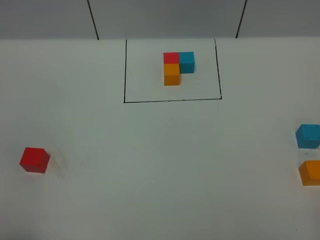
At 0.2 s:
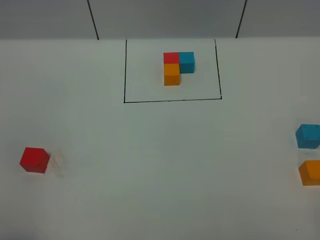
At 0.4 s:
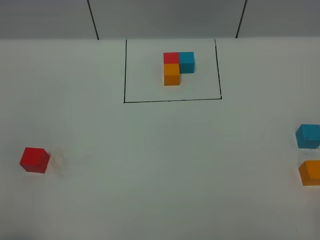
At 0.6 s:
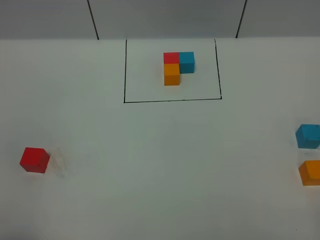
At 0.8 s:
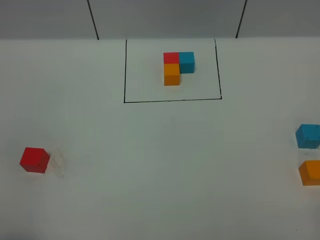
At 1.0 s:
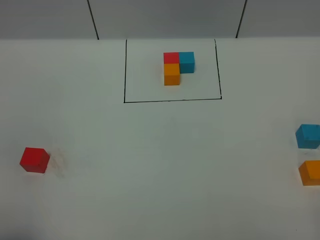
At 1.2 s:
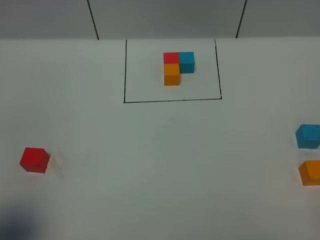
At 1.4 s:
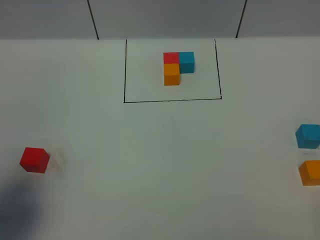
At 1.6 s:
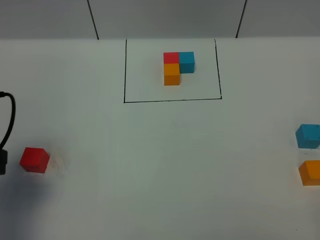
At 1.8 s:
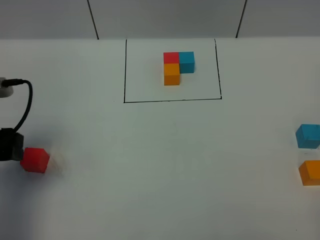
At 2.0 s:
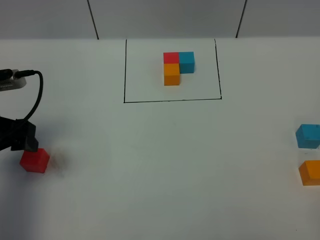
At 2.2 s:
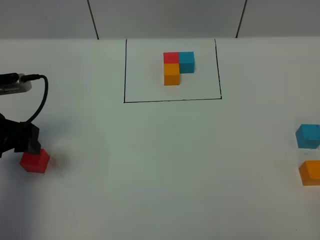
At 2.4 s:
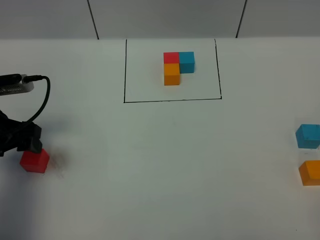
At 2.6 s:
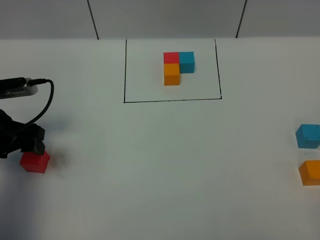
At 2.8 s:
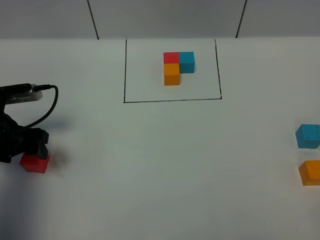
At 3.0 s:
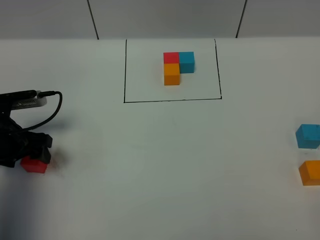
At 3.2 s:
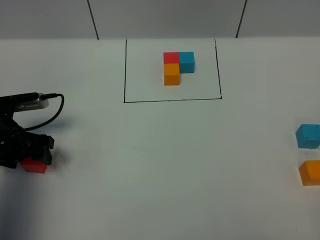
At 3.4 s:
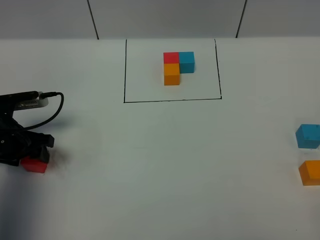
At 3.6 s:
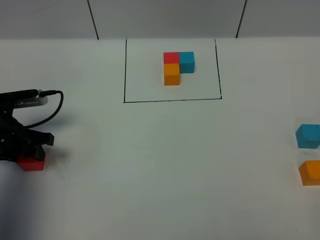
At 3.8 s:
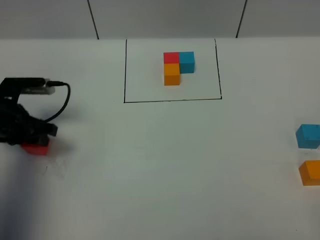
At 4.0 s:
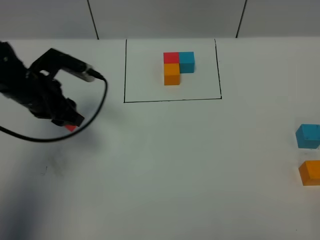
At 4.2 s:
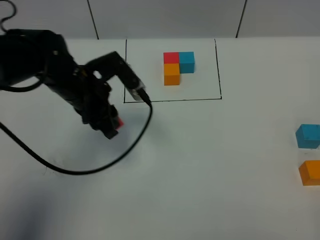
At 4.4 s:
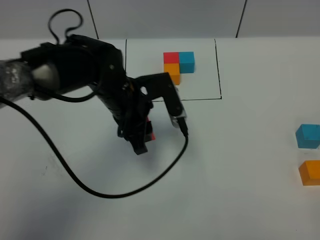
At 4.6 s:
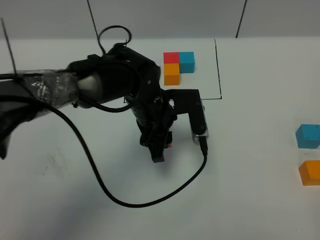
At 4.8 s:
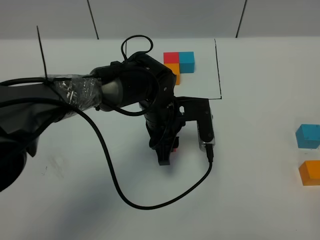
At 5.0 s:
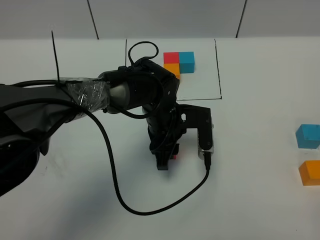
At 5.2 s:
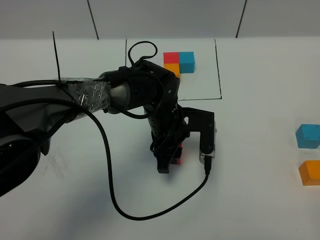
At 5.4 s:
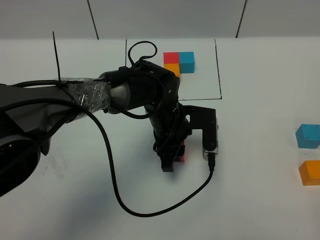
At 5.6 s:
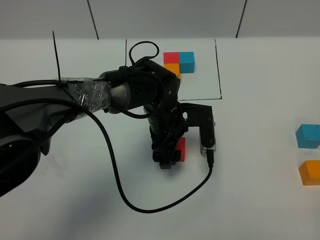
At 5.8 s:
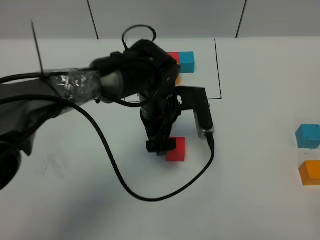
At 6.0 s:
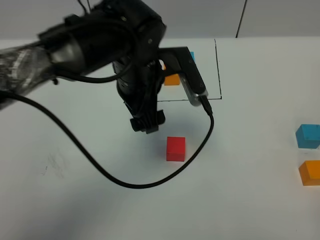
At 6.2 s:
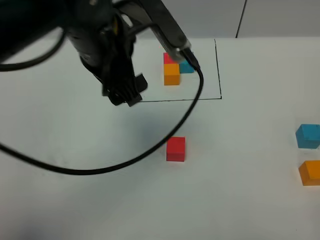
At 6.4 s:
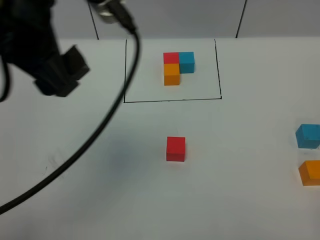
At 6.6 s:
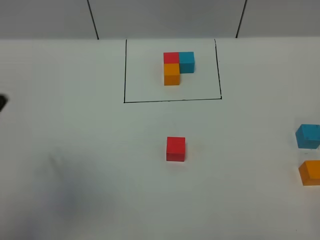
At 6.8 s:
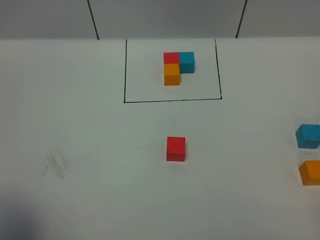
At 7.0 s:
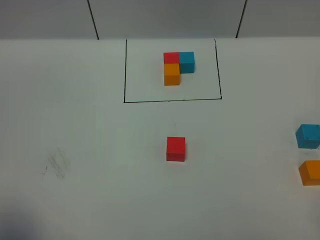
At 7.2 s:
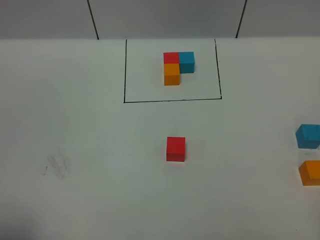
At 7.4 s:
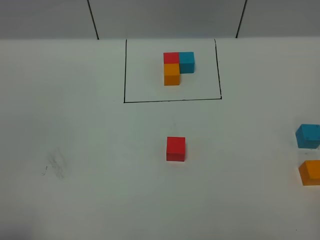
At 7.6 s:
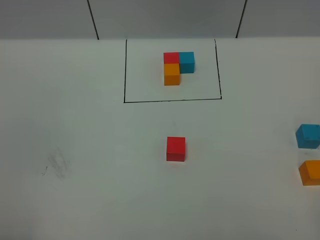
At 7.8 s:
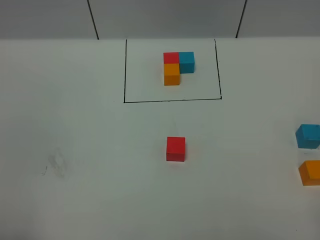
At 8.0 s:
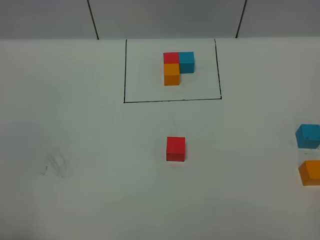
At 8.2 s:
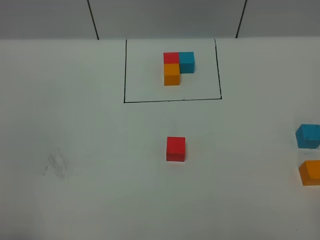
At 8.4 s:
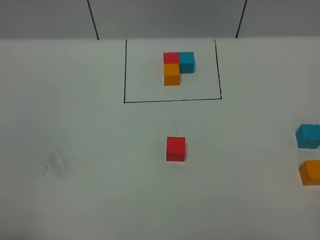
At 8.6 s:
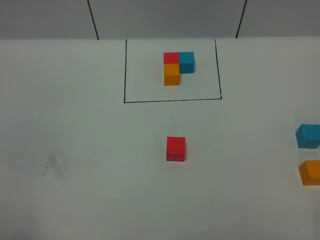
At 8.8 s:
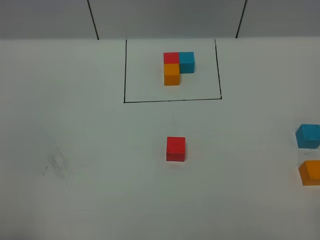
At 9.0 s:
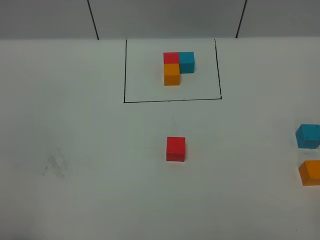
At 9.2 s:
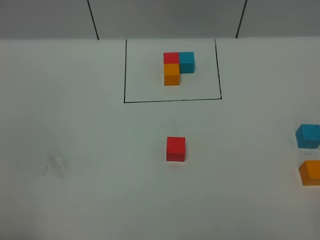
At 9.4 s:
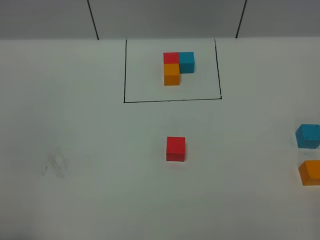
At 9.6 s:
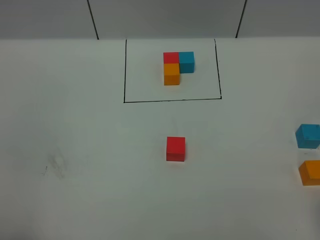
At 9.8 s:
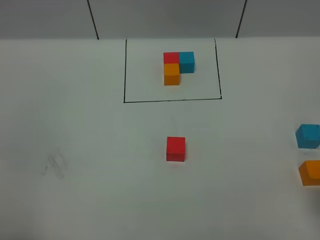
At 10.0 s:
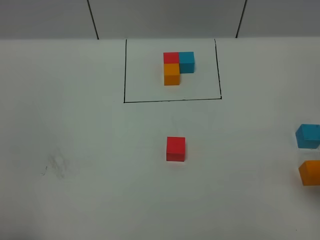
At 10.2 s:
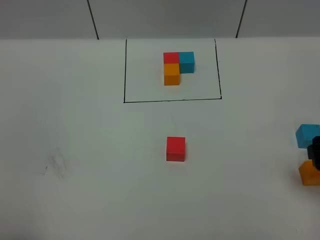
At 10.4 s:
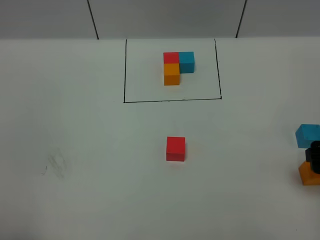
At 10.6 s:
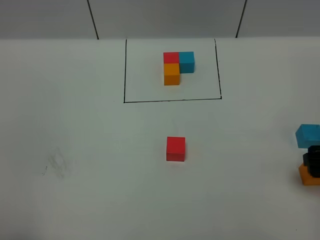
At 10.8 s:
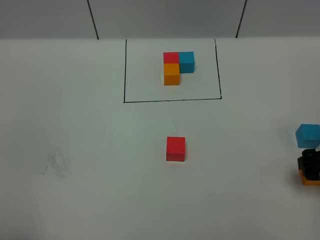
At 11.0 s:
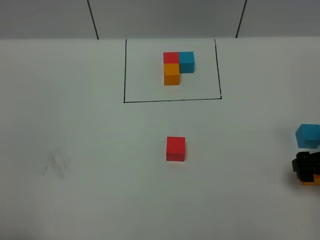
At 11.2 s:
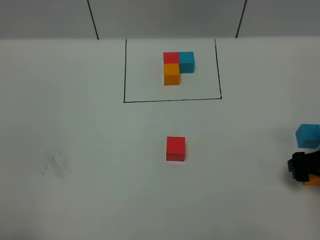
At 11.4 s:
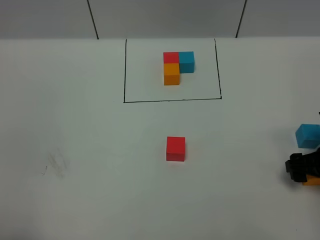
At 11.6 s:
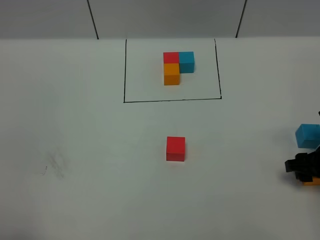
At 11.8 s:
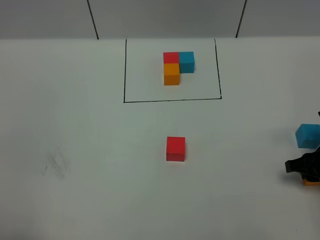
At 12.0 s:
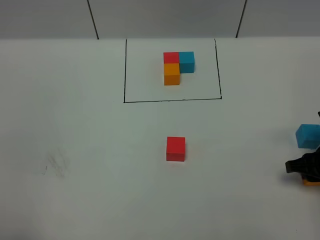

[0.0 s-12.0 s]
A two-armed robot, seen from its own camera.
Task of the whole recording: According to the building block template in front, assemble the scattered blocks together.
Step, 1.4 to 5.4 s: Put the red cube in the center of the table.
0.0 to 1.6 s: The left gripper moves forward, about 20 cm.
1.6 to 3.0 s: The left gripper heads downward and forward, covering roughly 15 cm.
3.0 to 4.4 s: The left gripper heads to the right, covering roughly 25 cm, and closes.
4.4 to 6.0 s: The left gripper heads upward, covering about 10 cm, and opens up.
6.0 to 7.6 s: The left gripper shifts some 40 cm backward and to the left, and closes up.
9.0 to 10.4 s: The right gripper moves forward, roughly 20 cm.
10.4 to 12.0 s: The right gripper is displaced downward by about 10 cm, and closes its fingers.

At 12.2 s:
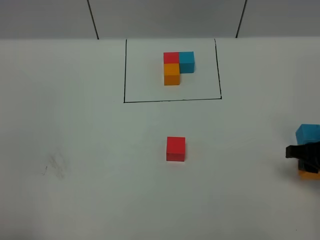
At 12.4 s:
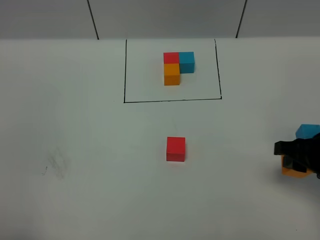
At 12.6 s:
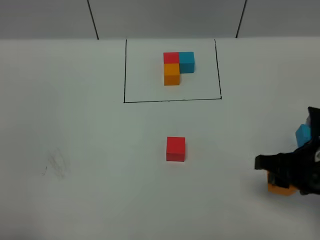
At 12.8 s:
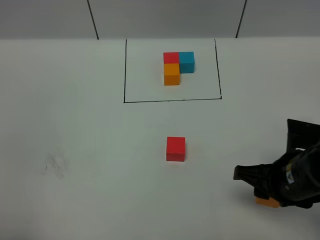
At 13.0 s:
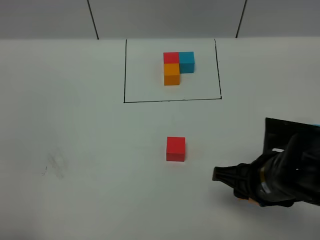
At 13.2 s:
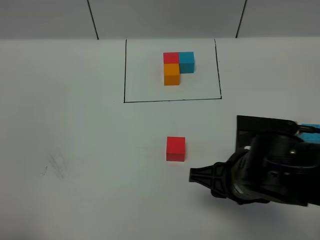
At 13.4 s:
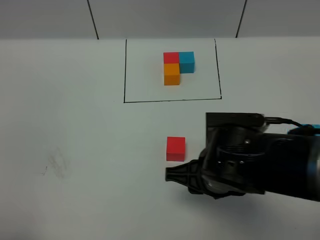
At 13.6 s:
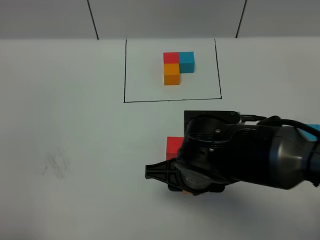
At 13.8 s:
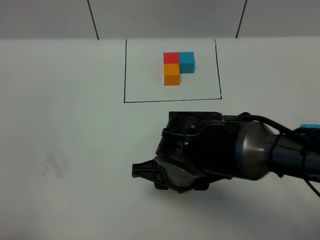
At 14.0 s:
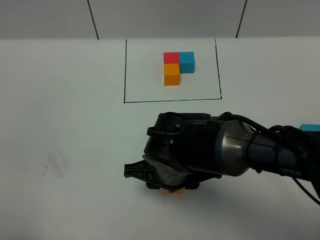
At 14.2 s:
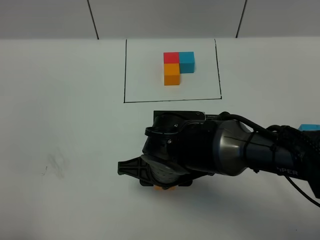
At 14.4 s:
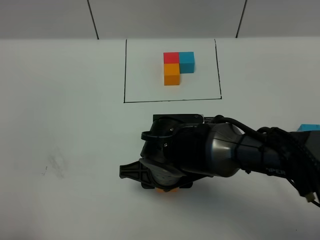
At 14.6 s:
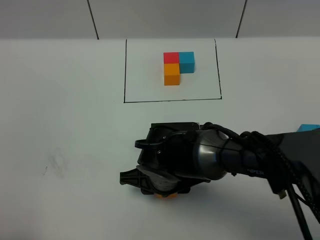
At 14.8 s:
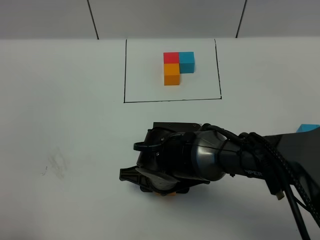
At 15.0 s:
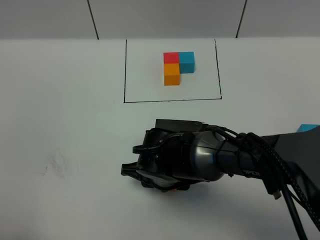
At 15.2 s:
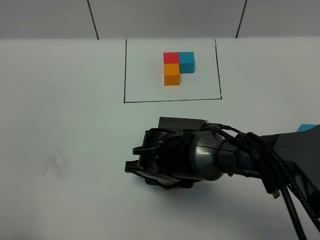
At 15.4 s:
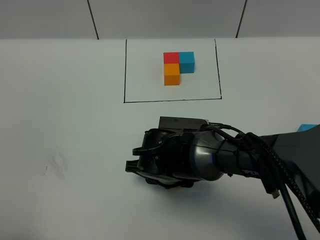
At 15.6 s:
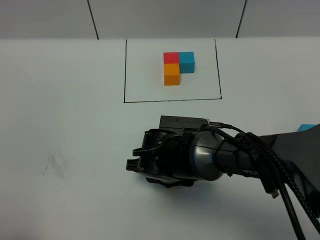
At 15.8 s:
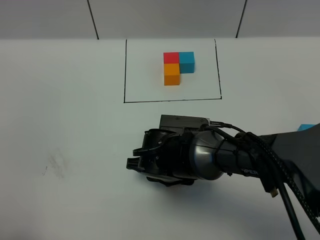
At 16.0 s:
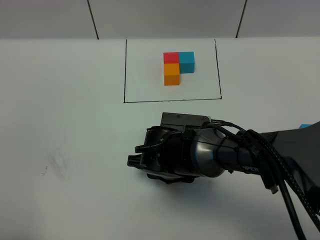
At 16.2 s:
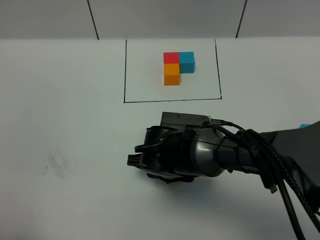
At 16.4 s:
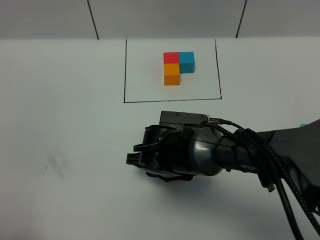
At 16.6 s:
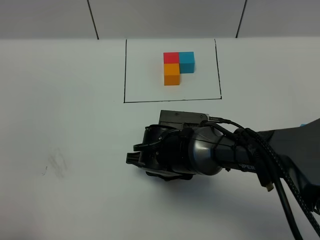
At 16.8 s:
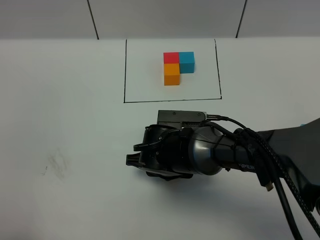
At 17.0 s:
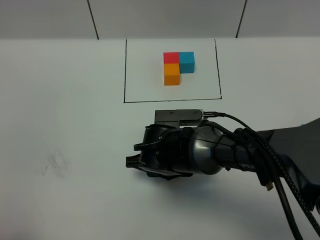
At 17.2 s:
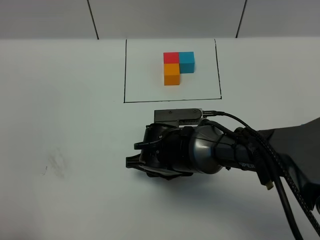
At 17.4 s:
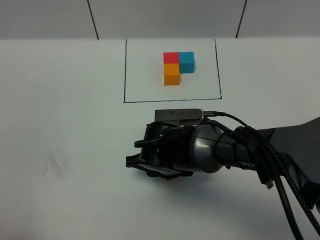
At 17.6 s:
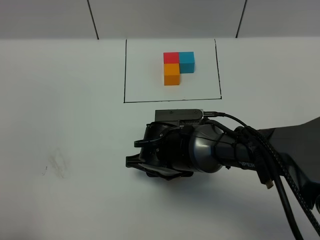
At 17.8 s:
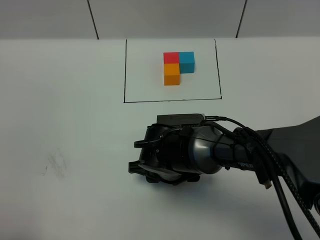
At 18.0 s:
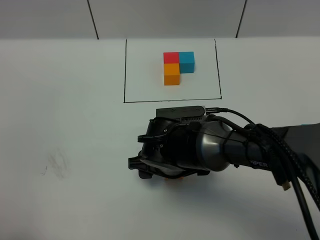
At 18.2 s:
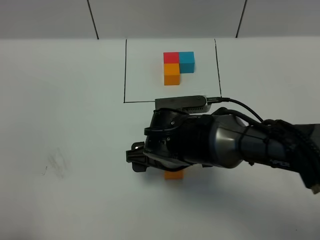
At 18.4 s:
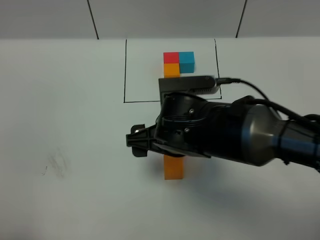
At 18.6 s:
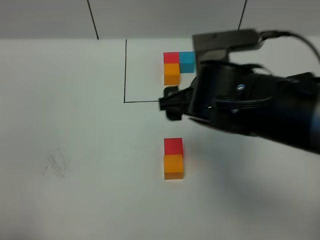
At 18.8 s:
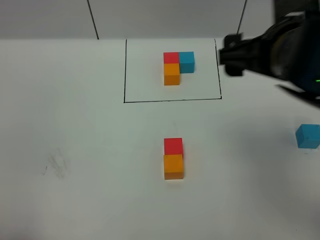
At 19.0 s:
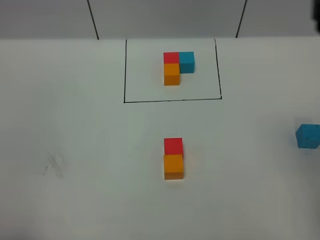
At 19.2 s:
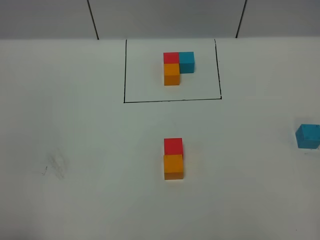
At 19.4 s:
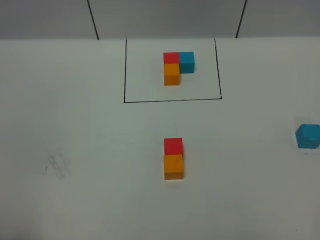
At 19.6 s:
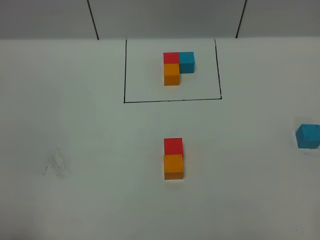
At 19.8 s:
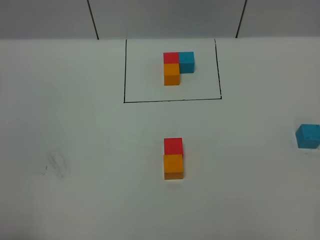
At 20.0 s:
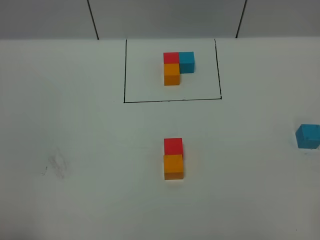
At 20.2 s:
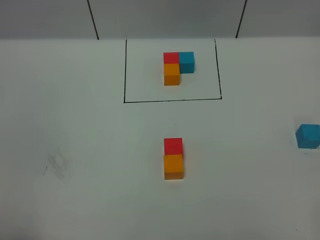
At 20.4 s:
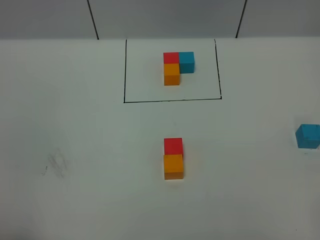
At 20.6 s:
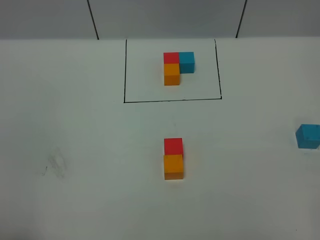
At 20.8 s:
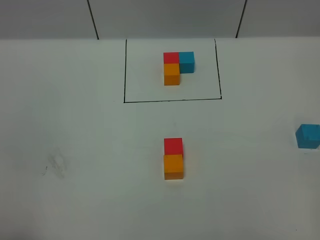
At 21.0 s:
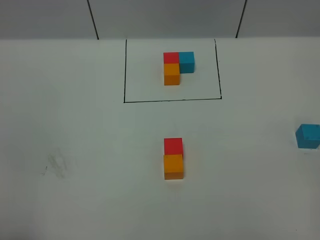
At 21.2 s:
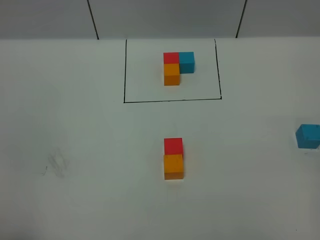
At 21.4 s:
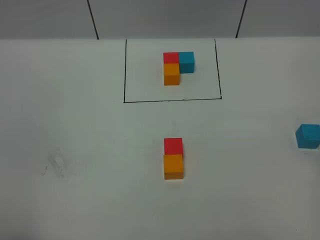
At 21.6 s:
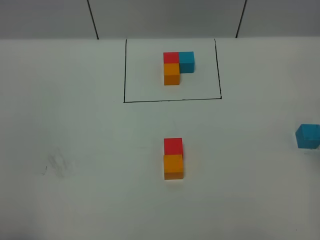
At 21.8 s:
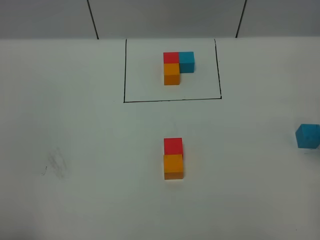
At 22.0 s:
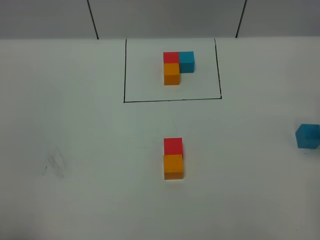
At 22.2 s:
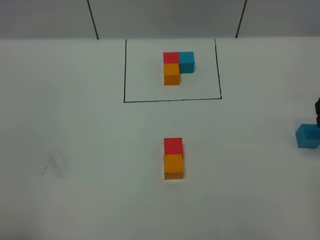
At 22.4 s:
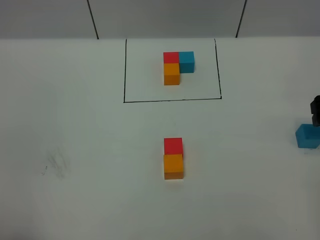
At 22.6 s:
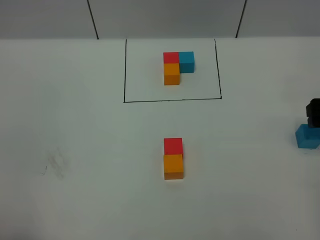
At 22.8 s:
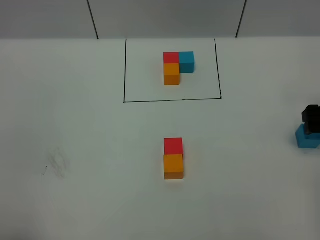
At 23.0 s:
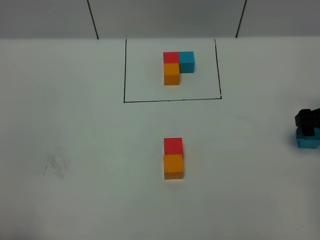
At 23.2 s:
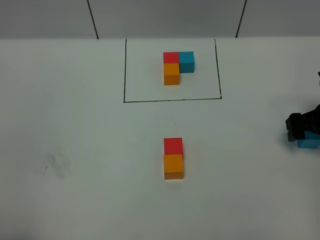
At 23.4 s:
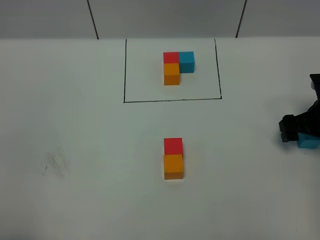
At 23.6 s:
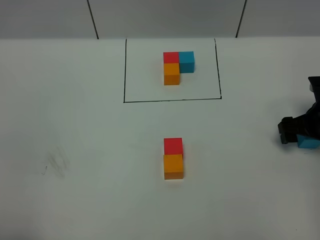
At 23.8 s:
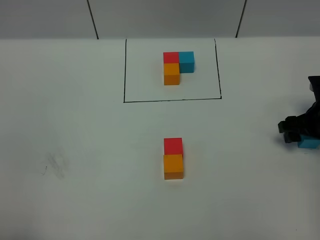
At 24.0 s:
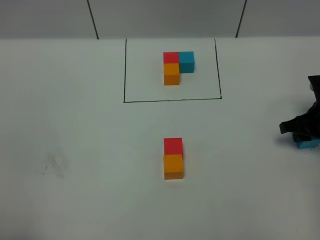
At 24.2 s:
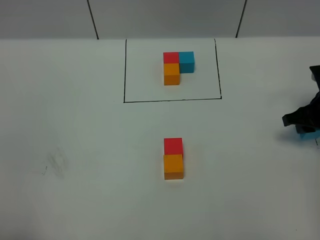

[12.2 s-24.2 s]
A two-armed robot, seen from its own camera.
Task of the whole recording: According to the building block template in front, assemble the scattered blocks together.
Step, 12.2 to 18.2 s: Put the orange cube in the front of the red cube.
12.2 to 13.8 s: The right gripper heads to the left, covering roughly 30 cm.
13.8 to 15.2 s: The right gripper heads downward, covering approximately 5 cm.
15.2 to 16.6 s: Both grippers stay about where they are.
16.6 to 18.2 s: The right gripper travels upward by some 5 cm, and opens.
18.2 to 19.8 s: The right gripper goes about 50 cm to the right, upward and backward.
21.2 to 22.6 s: The right gripper shifts about 20 cm downward and forward.
22.6 to 24.2 s: The right gripper shifts by some 5 cm, and closes its fingers.
